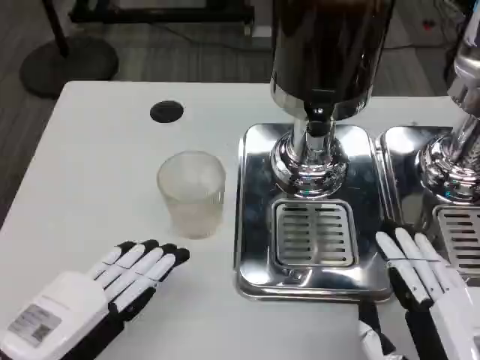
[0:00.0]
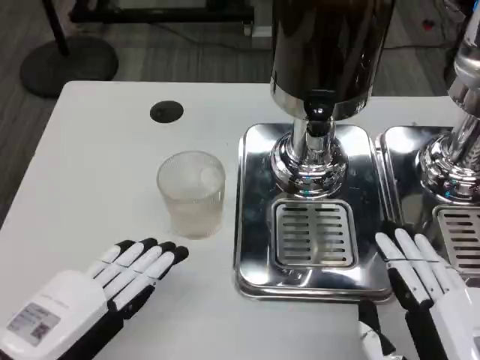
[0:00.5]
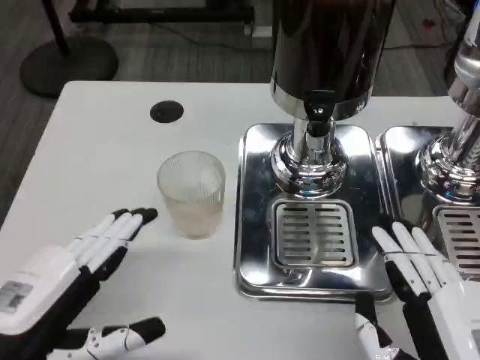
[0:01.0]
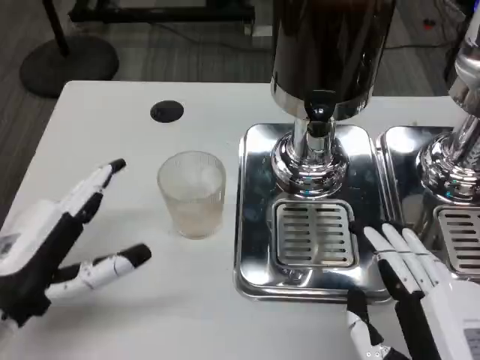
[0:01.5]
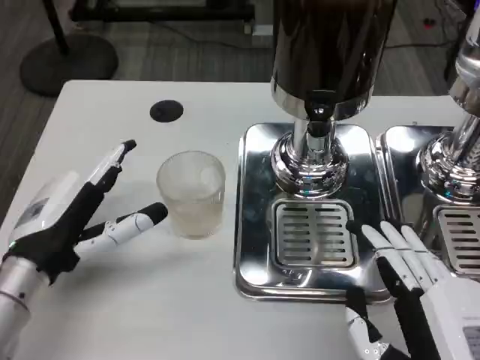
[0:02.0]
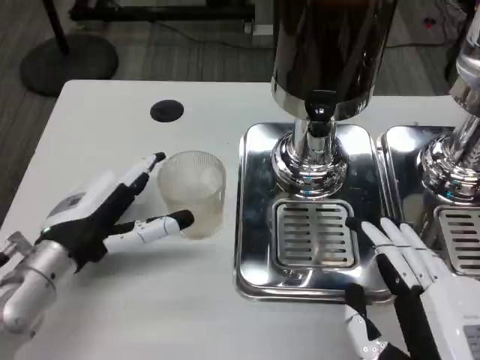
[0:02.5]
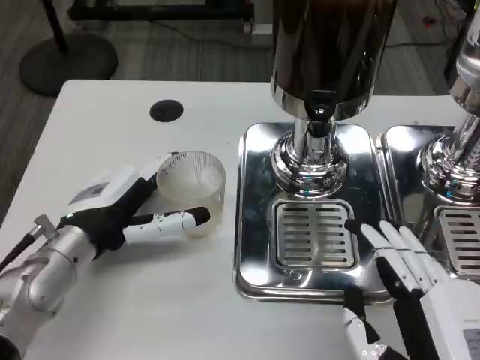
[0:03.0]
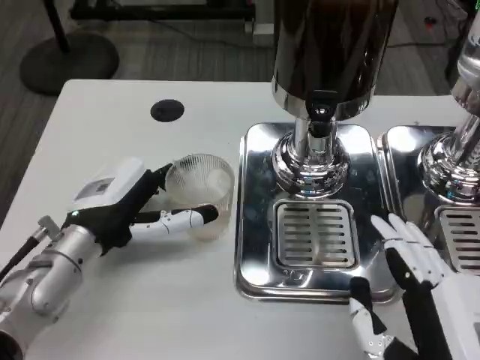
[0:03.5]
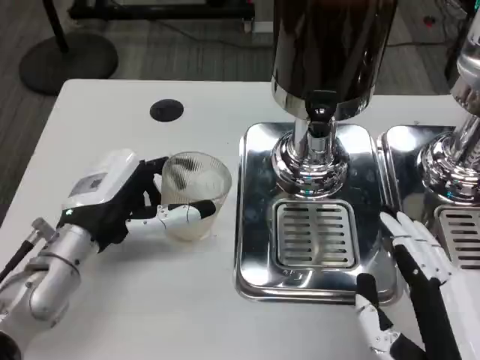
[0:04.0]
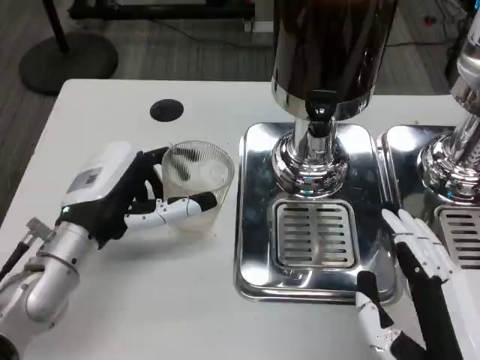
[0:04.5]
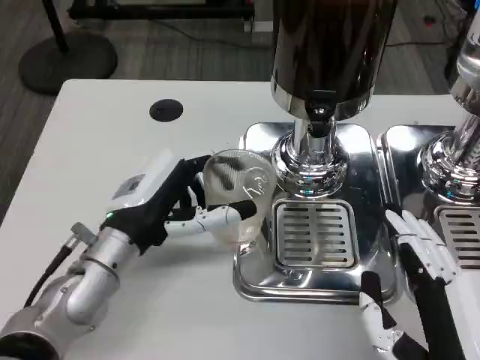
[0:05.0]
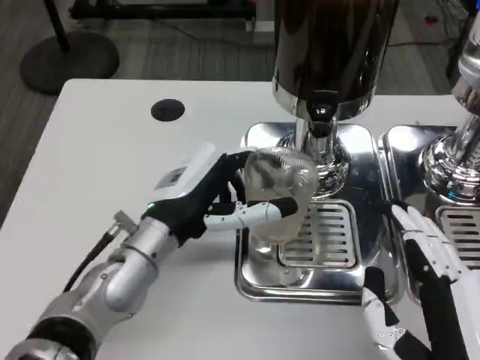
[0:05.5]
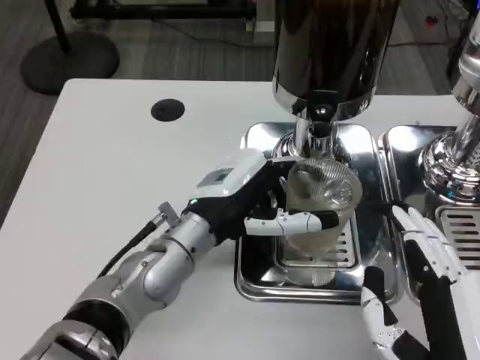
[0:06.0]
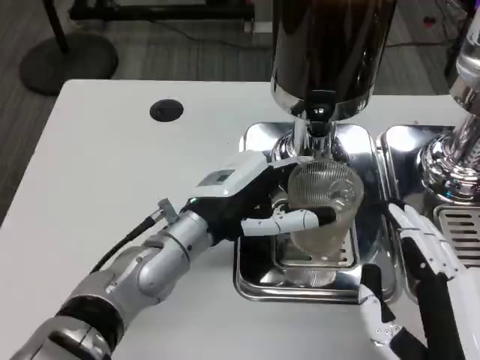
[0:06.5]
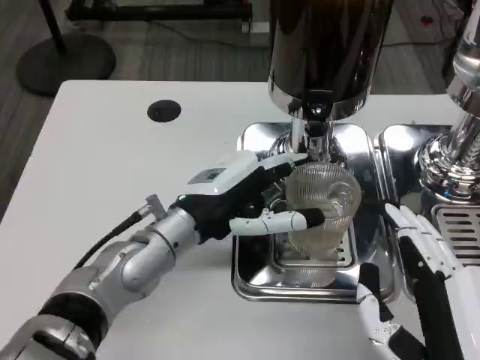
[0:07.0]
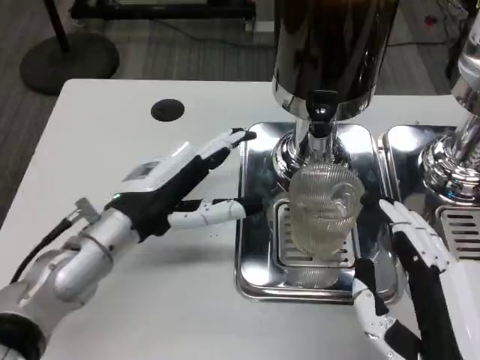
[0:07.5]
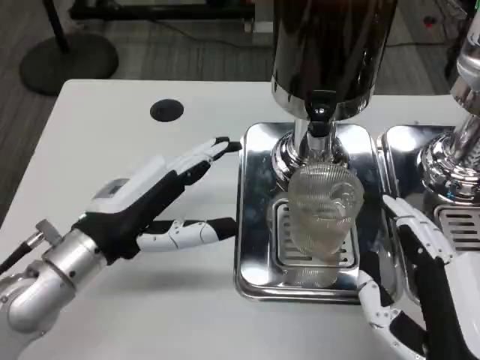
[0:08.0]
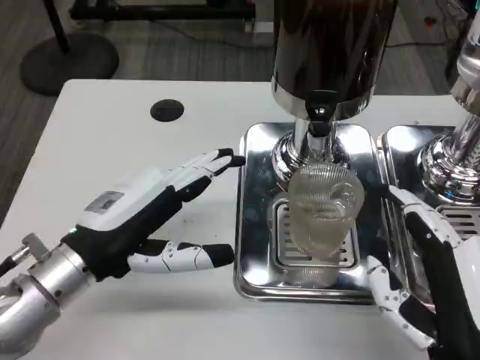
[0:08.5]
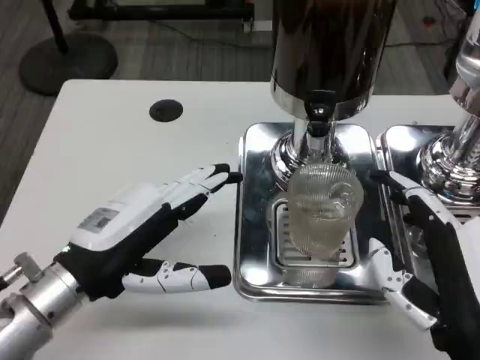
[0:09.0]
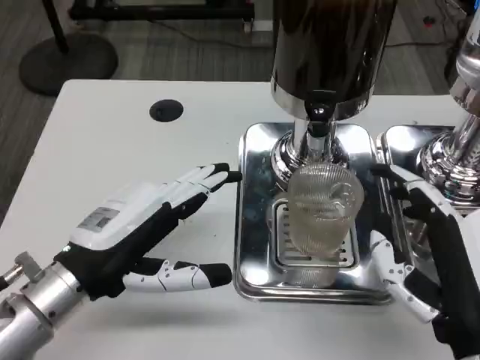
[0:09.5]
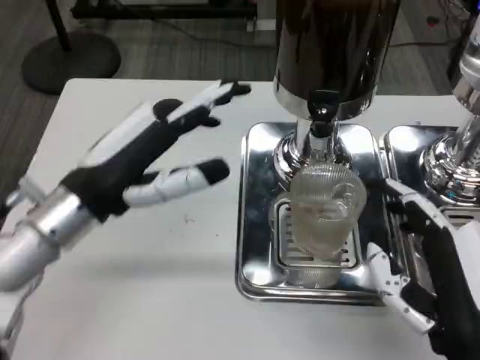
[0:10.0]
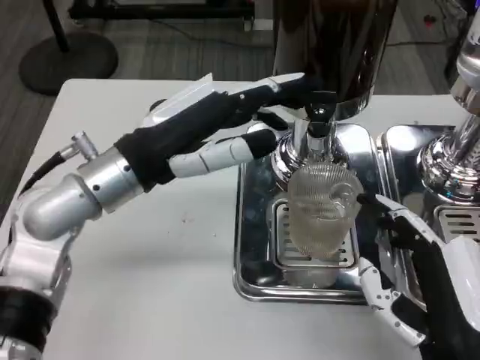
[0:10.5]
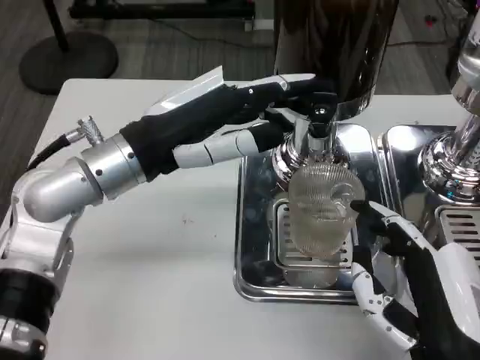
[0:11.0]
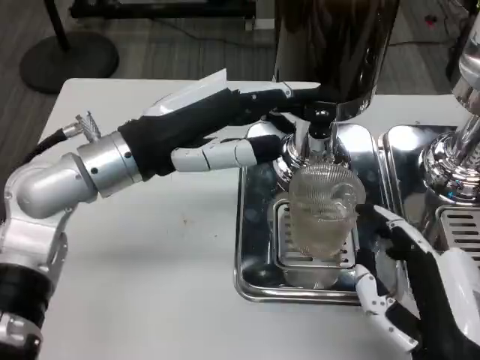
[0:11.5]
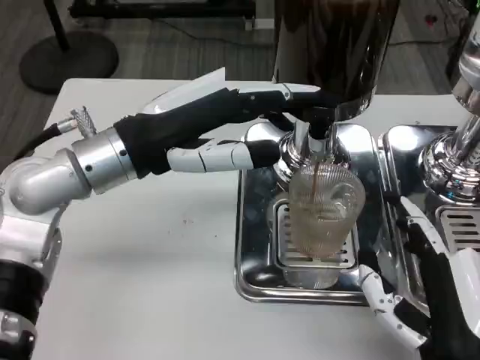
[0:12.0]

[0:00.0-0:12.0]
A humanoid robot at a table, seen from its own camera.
Task of the whole recording: Grasp the cup under the faucet to collect the drink, then remove the cup.
0:00.0 to 0:02.0: The left hand moves forward, about 10 cm.
0:02.0 to 0:04.0: The left hand ends up approximately 5 cm from where it was.
0:04.0 to 0:06.0: The left hand travels to the right by some 10 cm.
0:06.0 to 0:08.0: The left hand is displaced to the left by about 10 cm.
0:08.0 to 0:10.0: The left hand heads upward, covering some 5 cm.
0:10.0 to 0:12.0: The left hand changes place by approximately 5 cm.

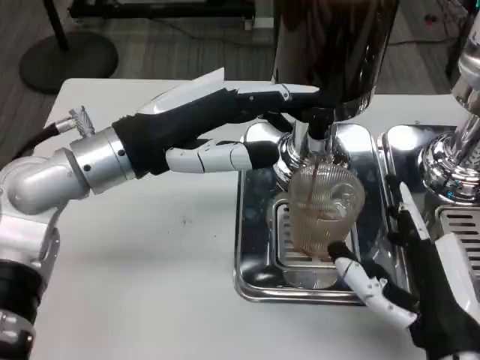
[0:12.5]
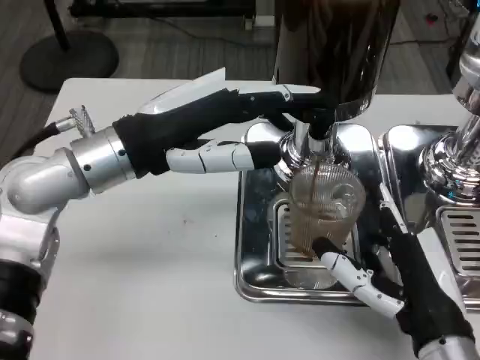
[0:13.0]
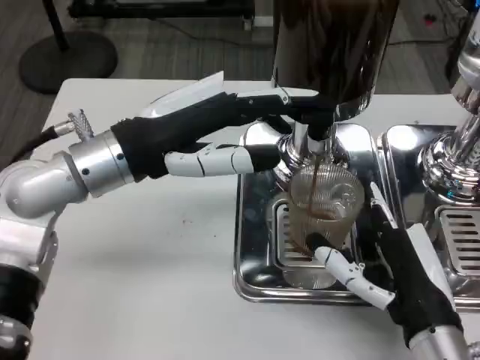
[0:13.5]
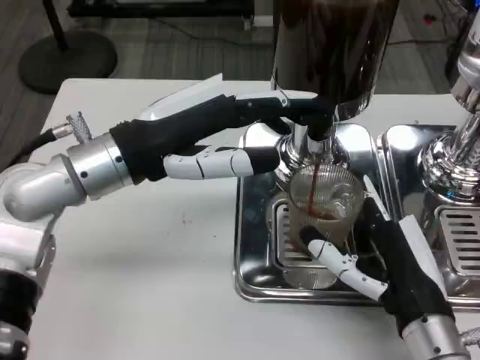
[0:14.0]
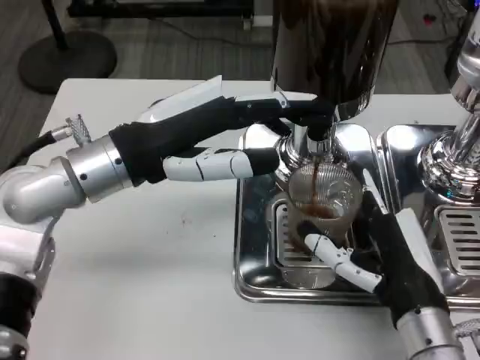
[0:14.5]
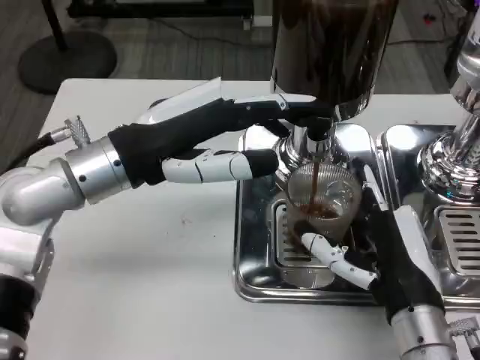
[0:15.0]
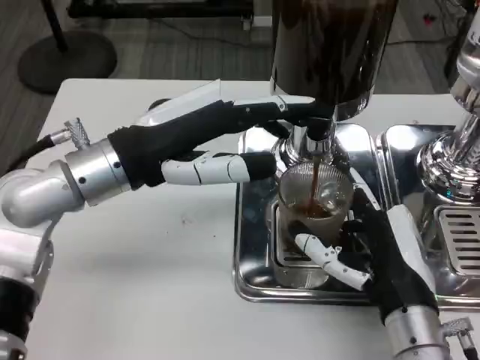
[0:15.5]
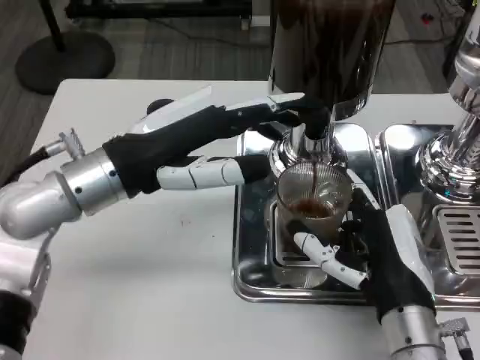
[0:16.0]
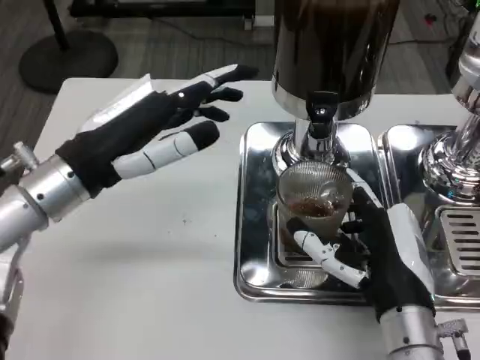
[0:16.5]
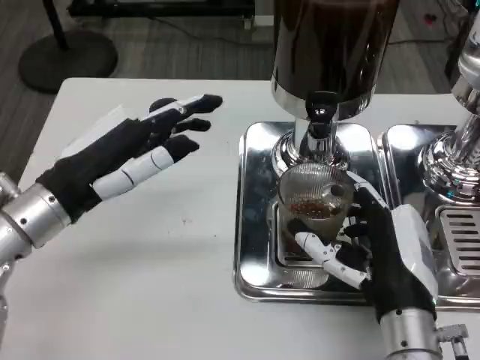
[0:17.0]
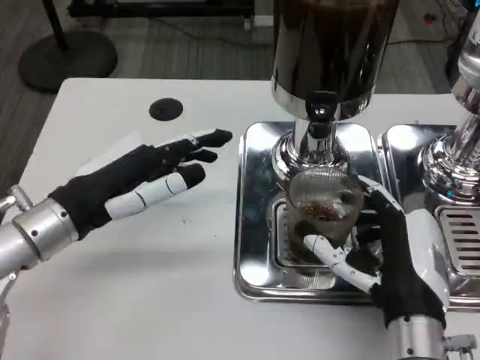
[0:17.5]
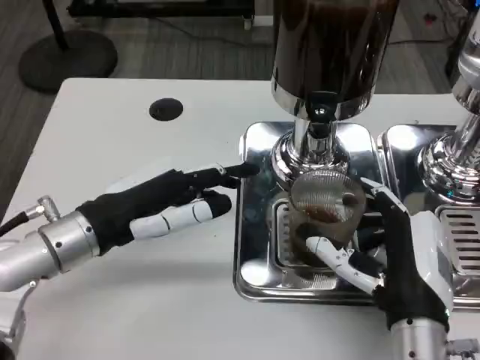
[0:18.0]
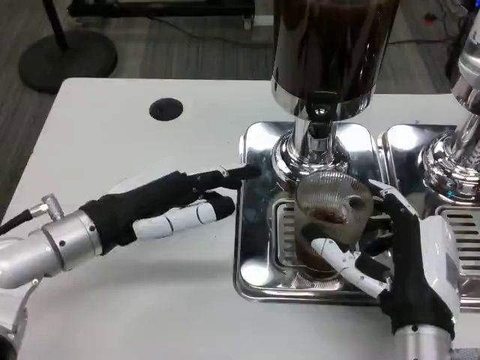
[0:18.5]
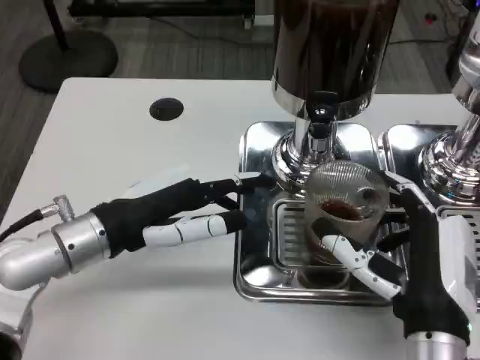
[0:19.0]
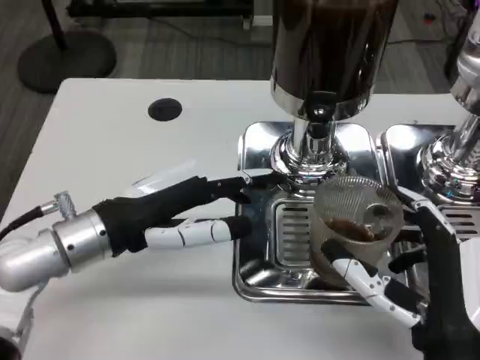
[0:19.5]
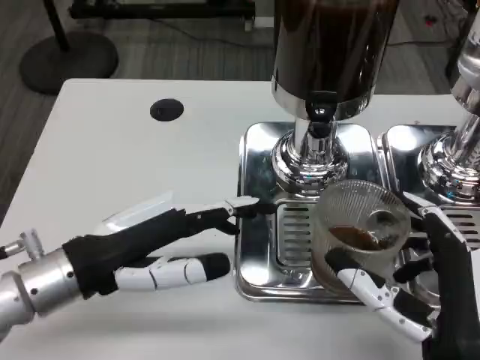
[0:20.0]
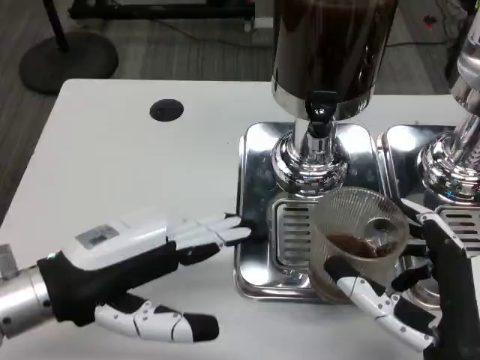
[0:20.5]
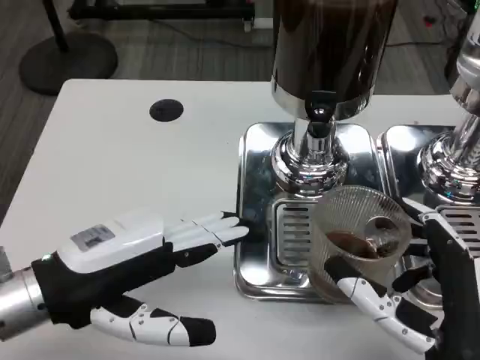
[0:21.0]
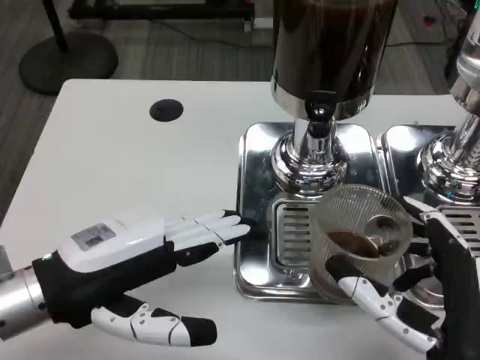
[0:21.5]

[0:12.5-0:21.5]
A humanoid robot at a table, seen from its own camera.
Task of the whole recording: Grasp the cup under the faucet to collect the drink, then remove the cup.
0:12.5 to 0:14.5: The right hand moves approximately 5 cm.
0:14.5 to 0:17.0: The left hand moves to the left, some 5 cm.
0:17.0 to 0:19.5: The right hand goes some 5 cm backward.
0:19.5 to 0:21.5: The left hand goes approximately 5 cm backward.

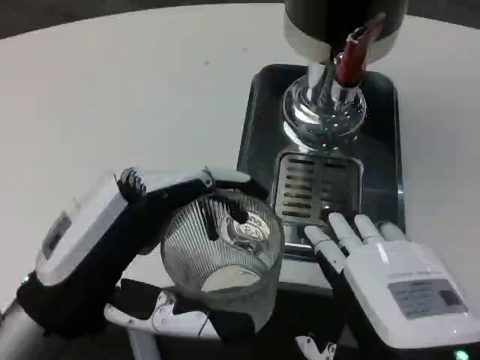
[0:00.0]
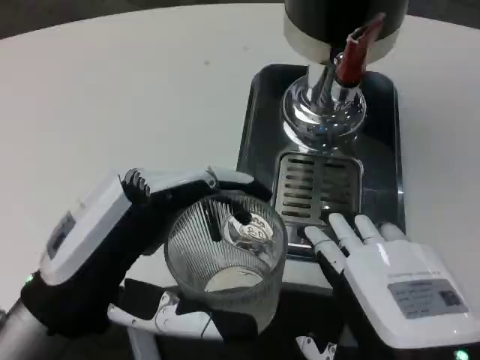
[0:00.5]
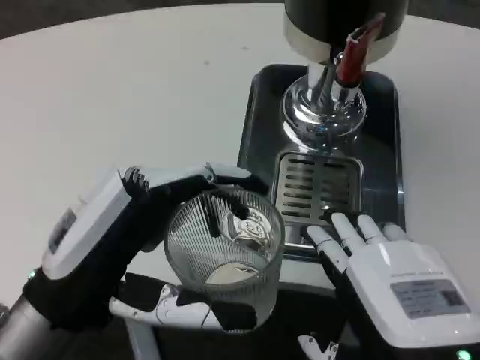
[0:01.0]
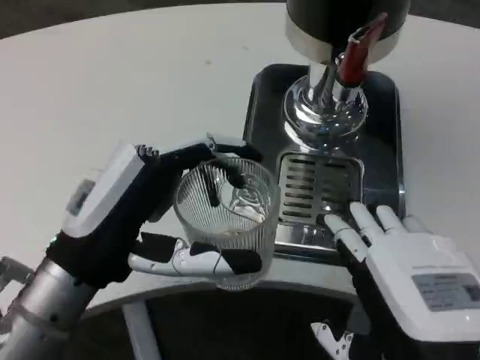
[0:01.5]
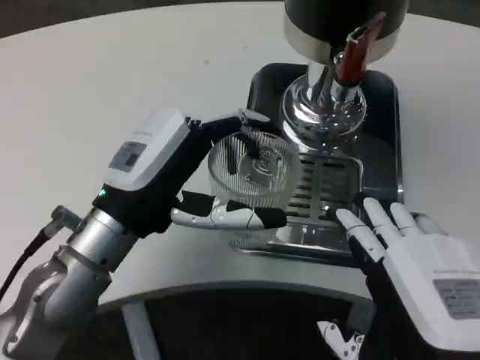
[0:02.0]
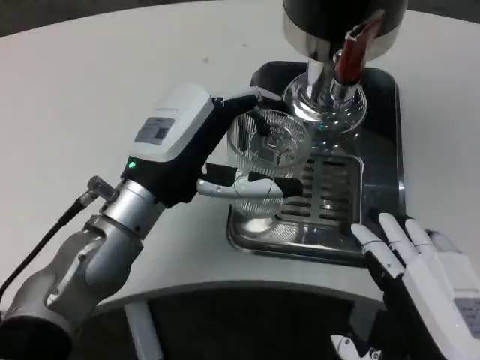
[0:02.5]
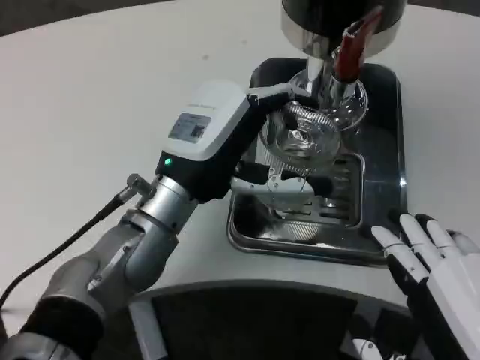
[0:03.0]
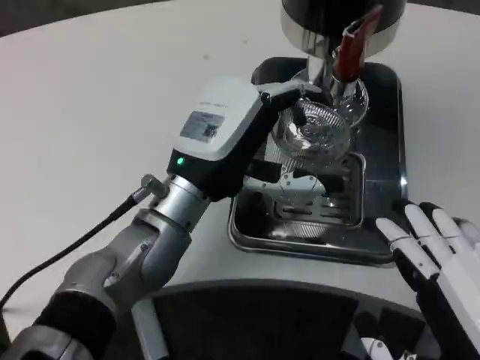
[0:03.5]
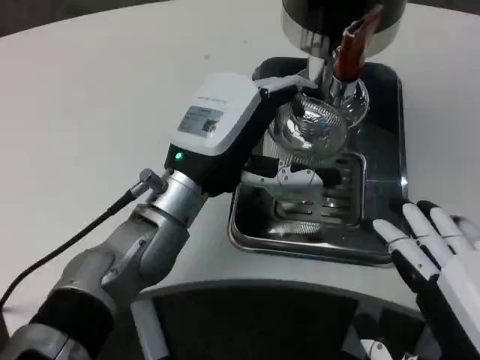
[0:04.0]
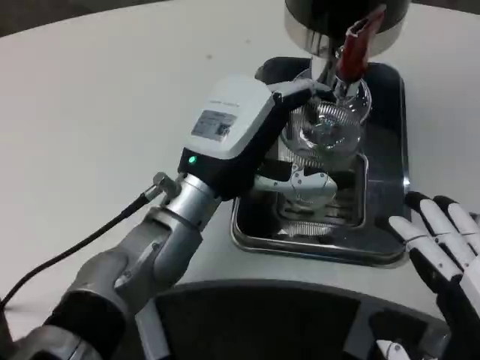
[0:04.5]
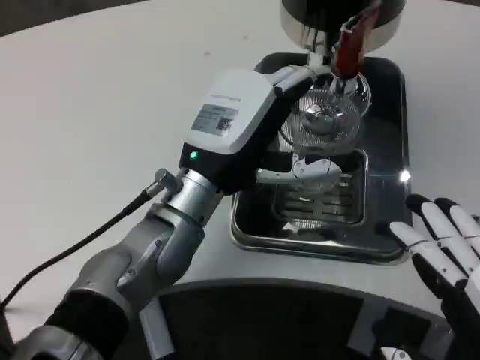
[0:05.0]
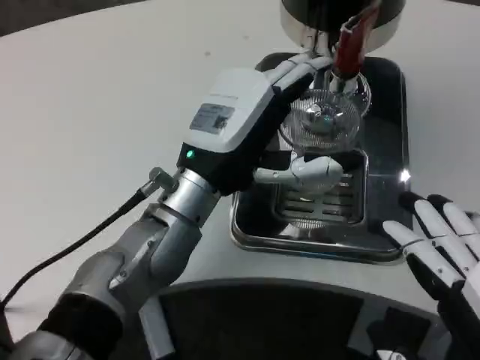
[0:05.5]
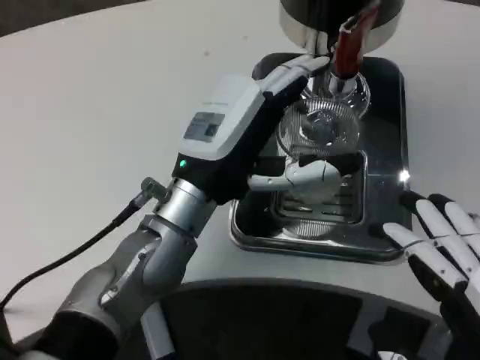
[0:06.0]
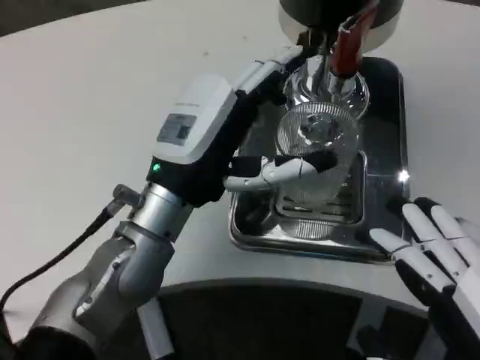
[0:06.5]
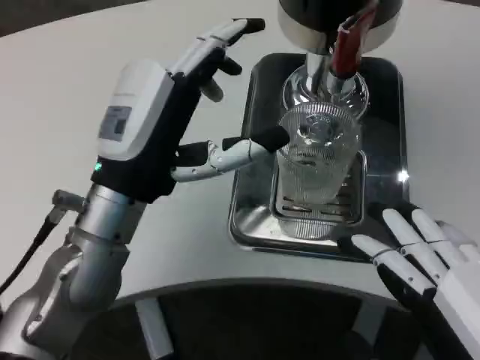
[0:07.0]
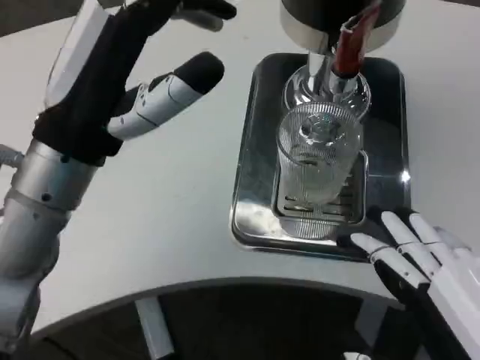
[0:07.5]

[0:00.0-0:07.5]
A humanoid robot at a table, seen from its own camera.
Task of the whole recording: Grasp the cup under the faucet to collect the drink, then remove the cup.
0:00.0 to 0:02.0: The left hand heads forward, covering approximately 10 cm.
0:02.0 to 0:04.0: The left hand shifts roughly 5 cm to the right.
0:05.5 to 0:07.5: The left hand moves to the left, upward and backward, approximately 10 cm.
